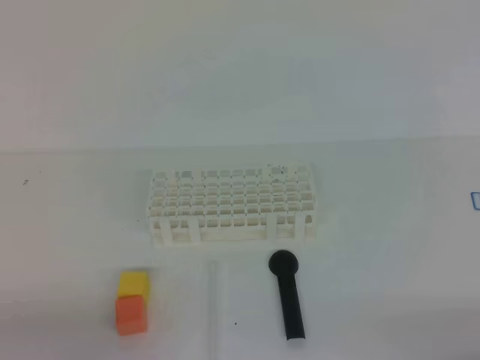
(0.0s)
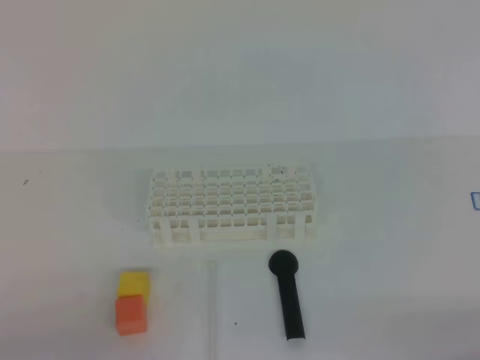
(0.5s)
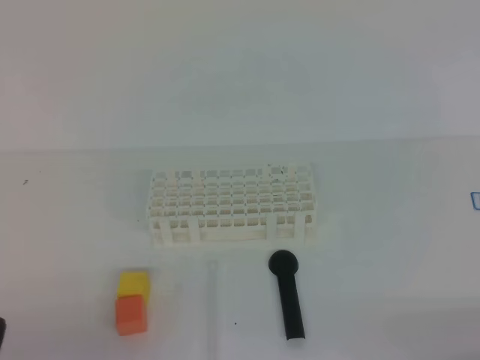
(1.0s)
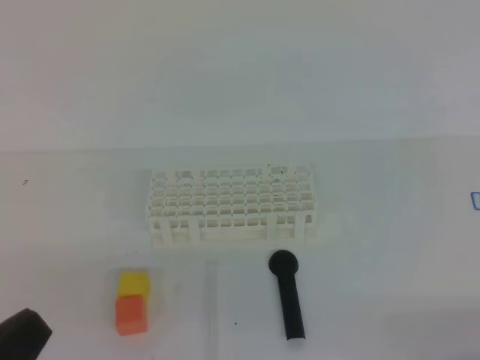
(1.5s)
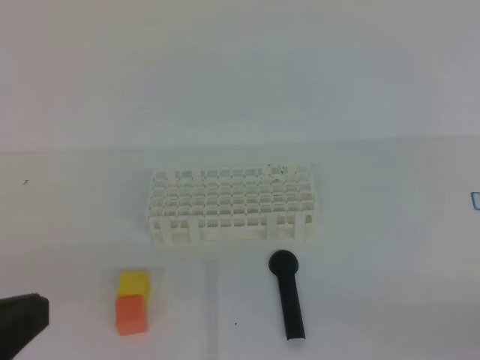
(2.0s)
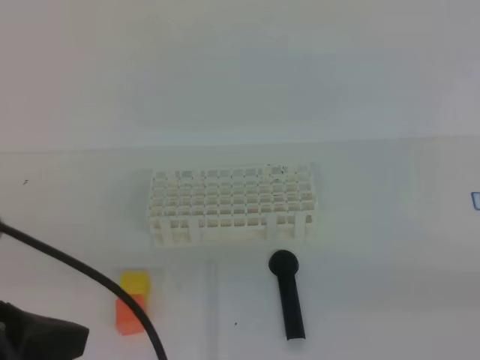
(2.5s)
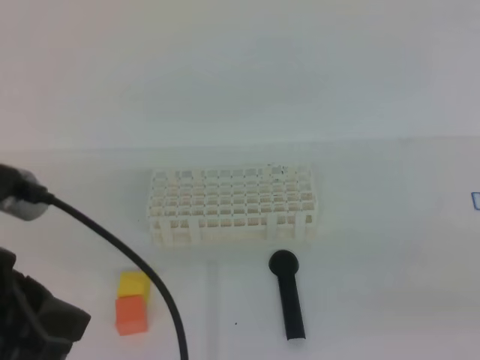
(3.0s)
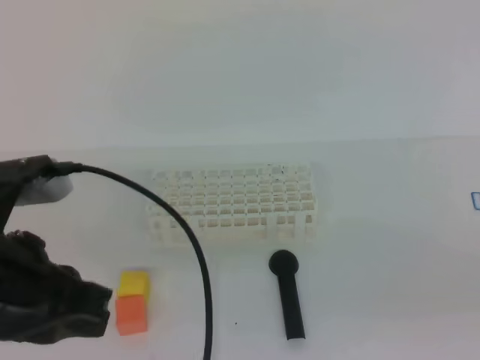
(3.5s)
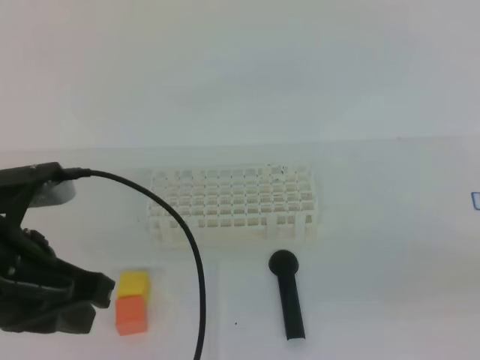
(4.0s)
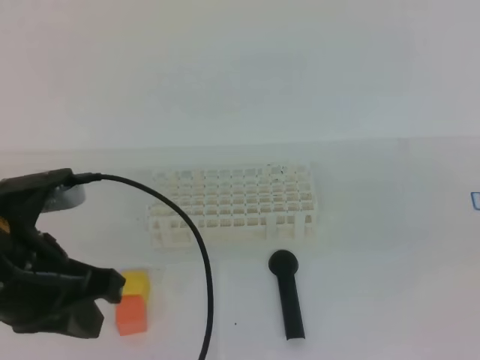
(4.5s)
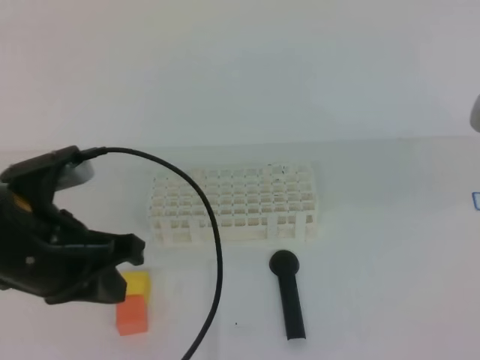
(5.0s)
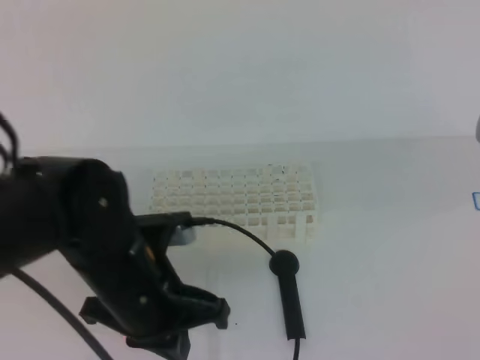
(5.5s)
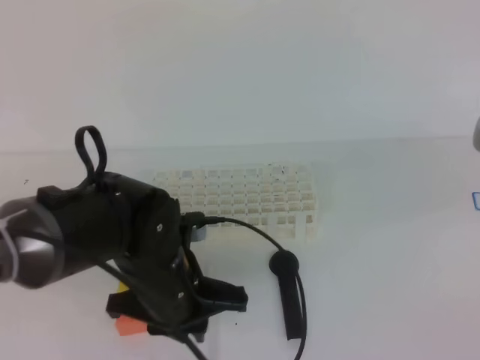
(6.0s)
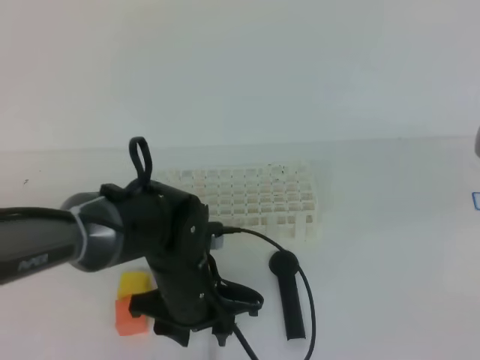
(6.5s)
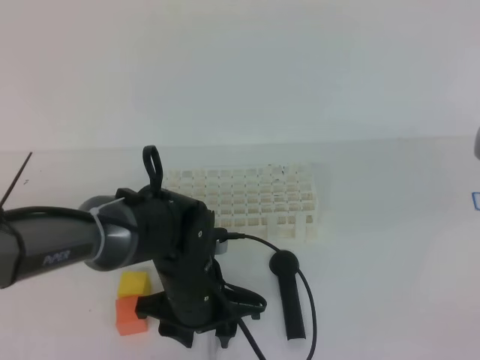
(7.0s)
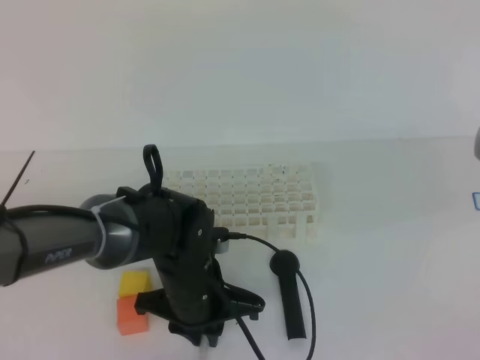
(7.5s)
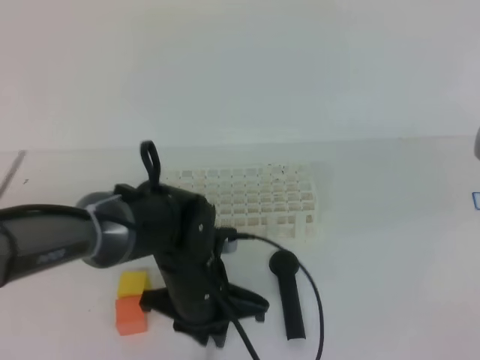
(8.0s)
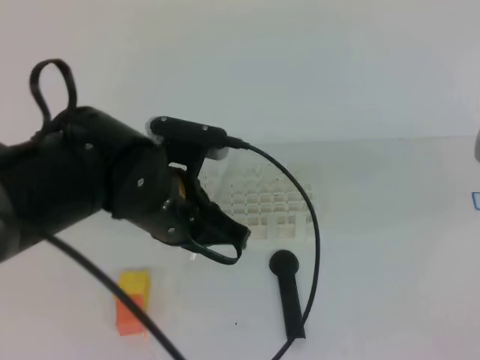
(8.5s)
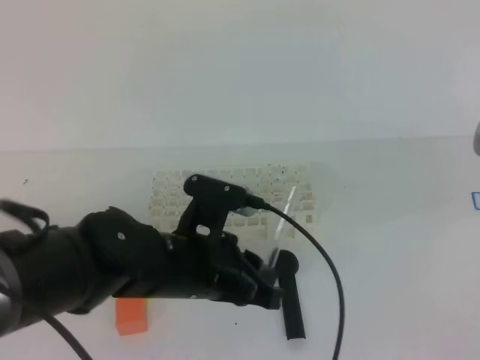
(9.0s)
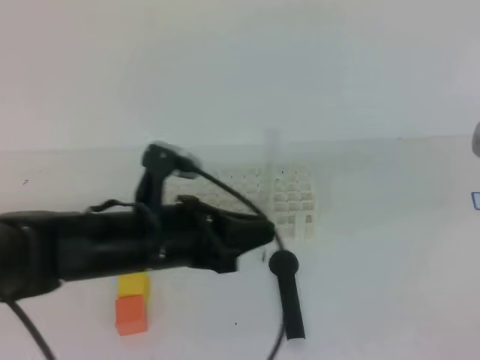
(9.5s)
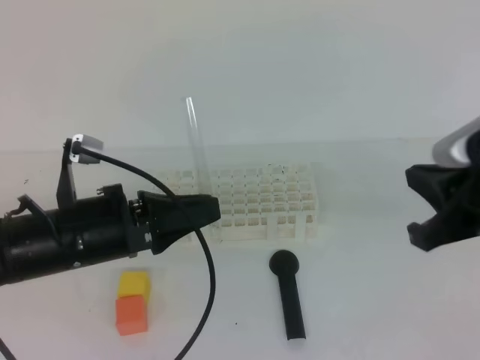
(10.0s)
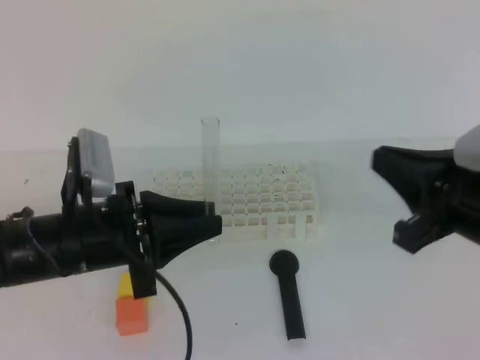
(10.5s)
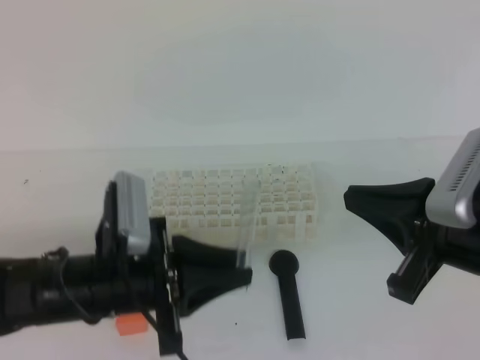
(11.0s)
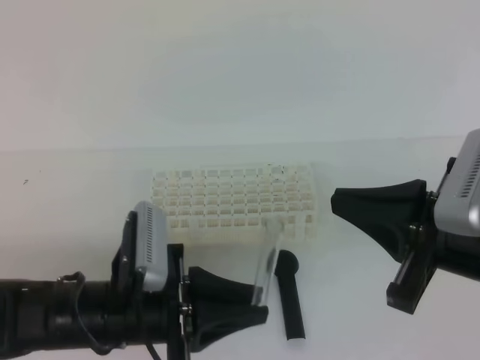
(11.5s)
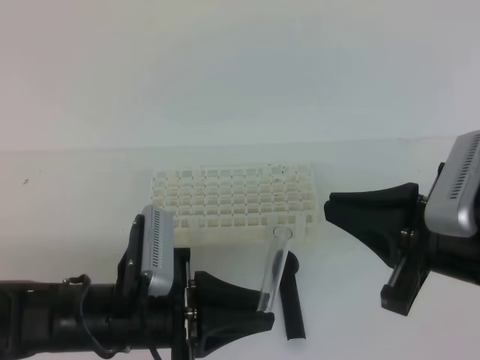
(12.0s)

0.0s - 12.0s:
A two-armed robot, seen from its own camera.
0.0s - 2.0s: The left gripper moves upward, roughly 15 cm.
2.0s - 4.0s: The left gripper shifts approximately 10 cm forward. Meanwhile the right gripper is displaced upward and to the left by some 15 cm.
4.0s - 6.0s: The right gripper goes about 15 cm forward, while the left gripper moves downward, to the right and forward, about 15 cm.
6.0s - 8.0s: The left gripper changes place by about 5 cm, and opens, then closes once more.
8.0s - 10.0s: The left gripper heads to the left and upward, covering some 10 cm. Meanwhile the right gripper heads downward, covering about 5 cm.
10.0s - 12.0s: The right gripper ends up roughly 5 cm from where it was; the left gripper is displaced backward by approximately 5 cm.

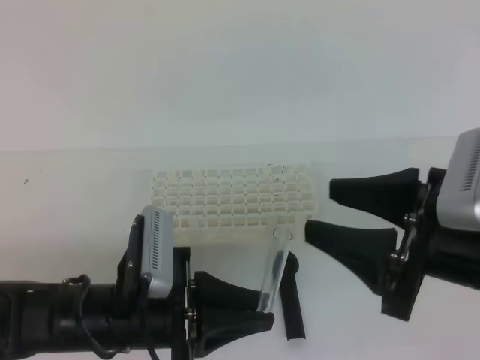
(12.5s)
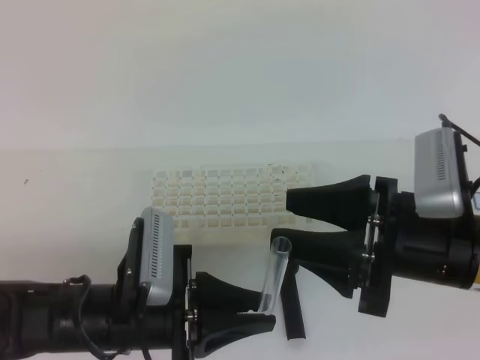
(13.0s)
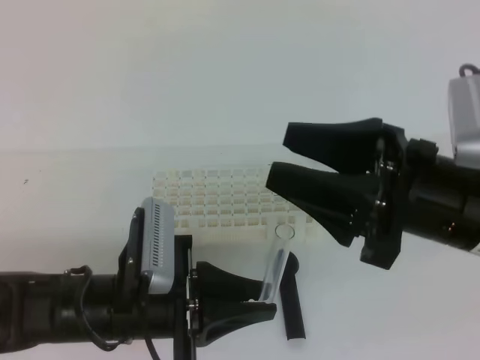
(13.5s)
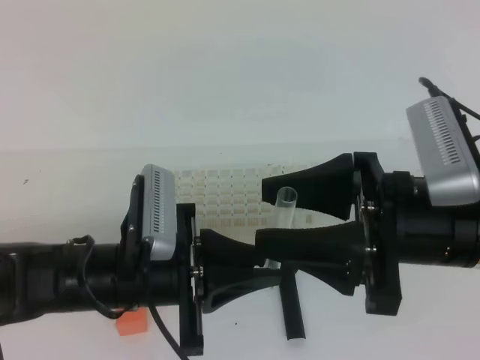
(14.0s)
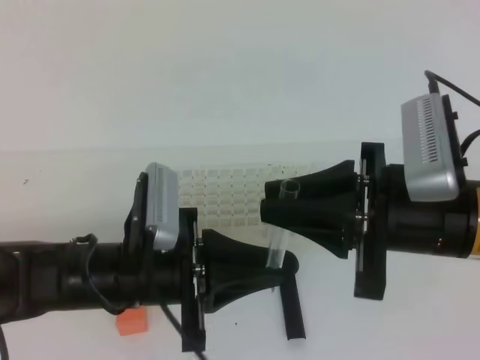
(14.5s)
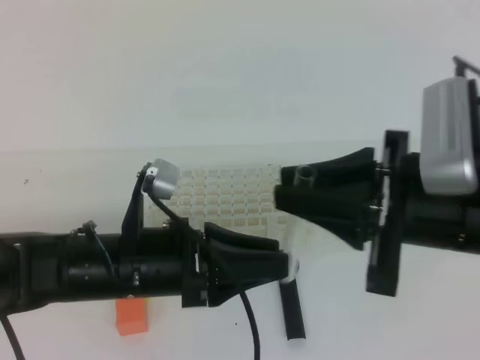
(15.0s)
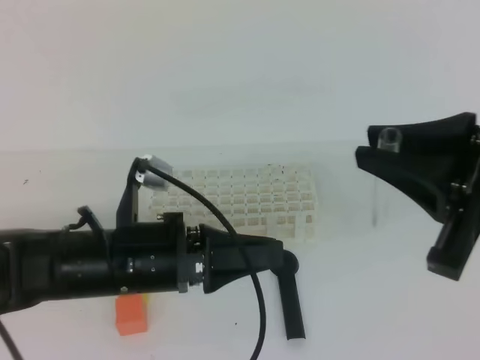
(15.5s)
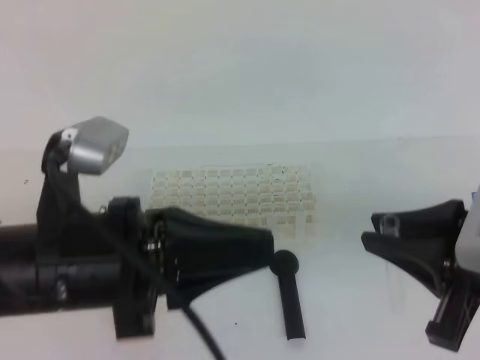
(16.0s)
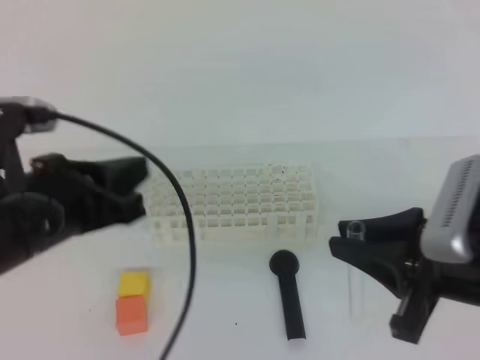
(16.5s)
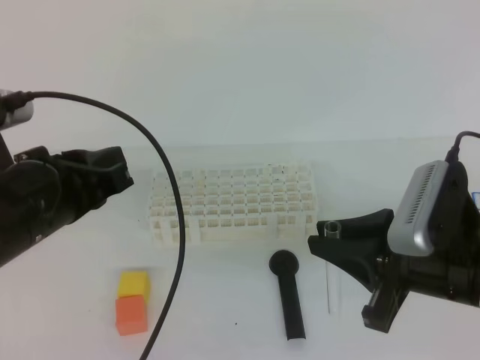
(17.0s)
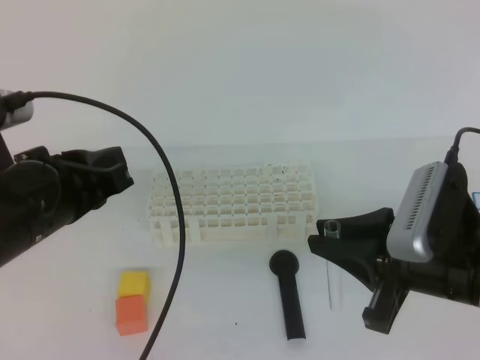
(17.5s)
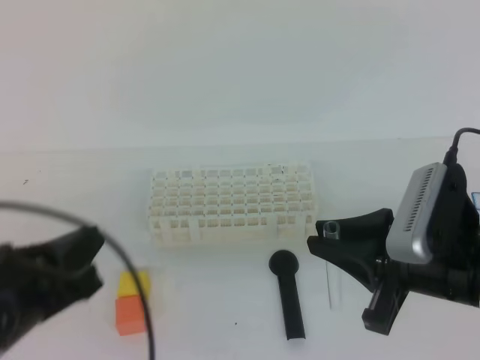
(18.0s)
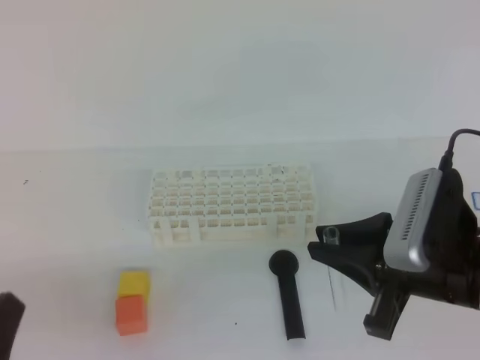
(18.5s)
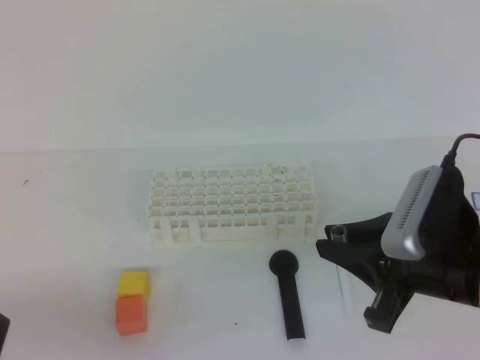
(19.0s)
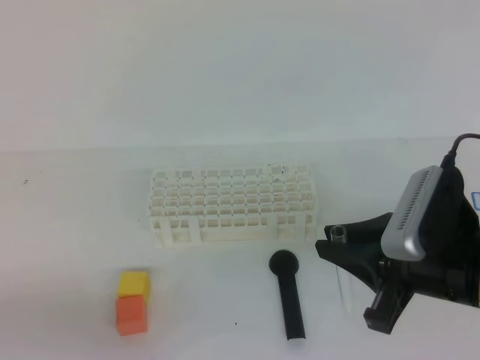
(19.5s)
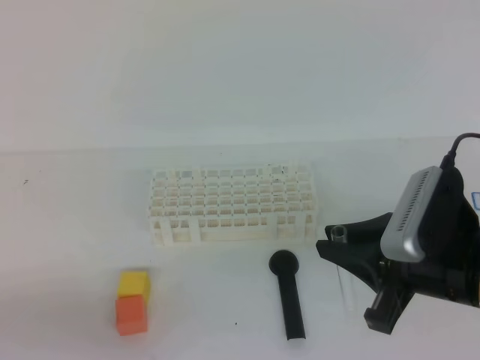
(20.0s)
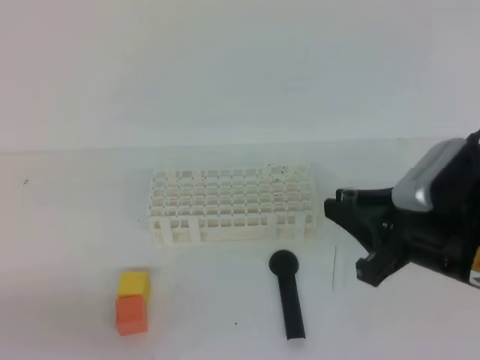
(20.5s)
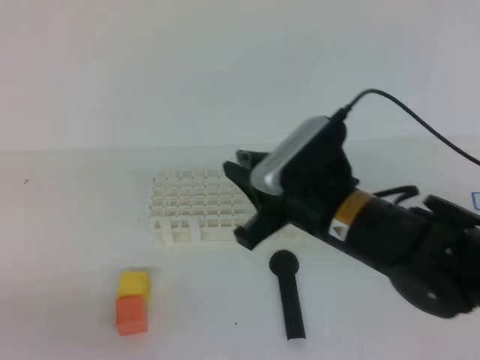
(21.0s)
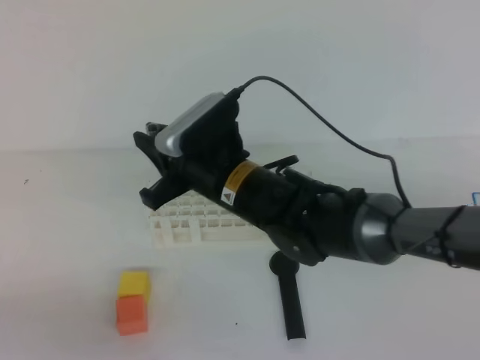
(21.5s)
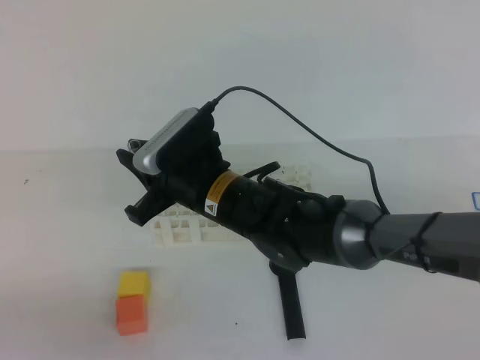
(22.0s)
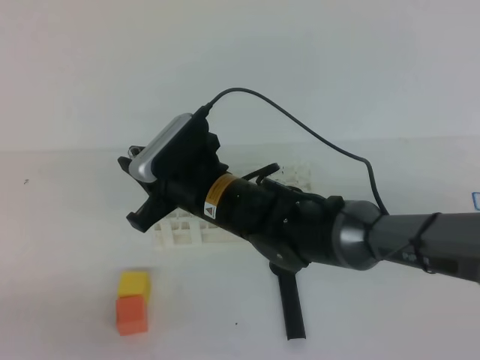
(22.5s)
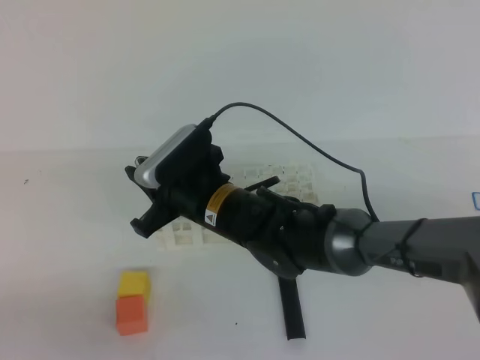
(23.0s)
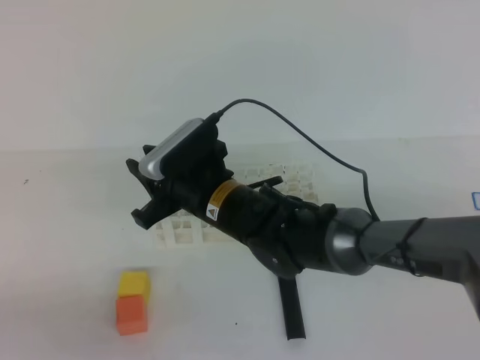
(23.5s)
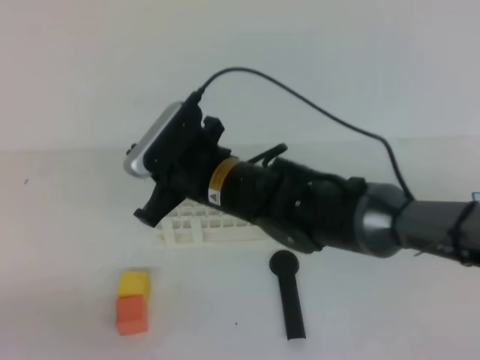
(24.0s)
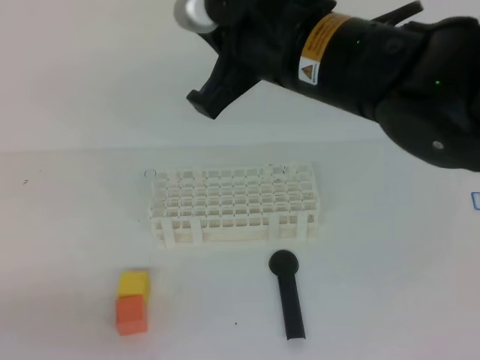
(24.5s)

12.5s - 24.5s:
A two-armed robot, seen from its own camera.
12.5s - 14.5s: The right gripper closes its fingers. The left gripper changes place by some 5 cm.
14.5s - 16.5s: The right gripper moves about 5 cm, while the left gripper travels upward and to the left by some 10 cm, and opens and closes again.
16.5s - 18.5s: The left gripper is displaced backward, downward and to the left by some 15 cm.
18.5s - 20.5s: The grippers move only a little.
20.5s - 22.5s: The right gripper is displaced to the left and forward by approximately 25 cm.
22.5s - 24.5s: The right gripper heads upward and to the right, covering about 20 cm.

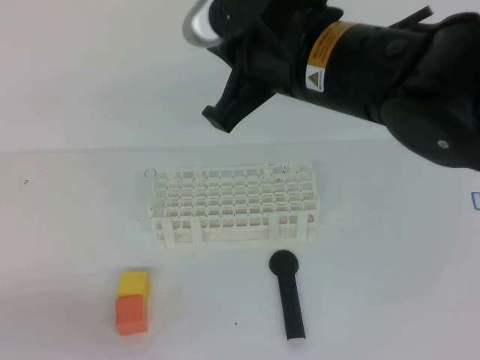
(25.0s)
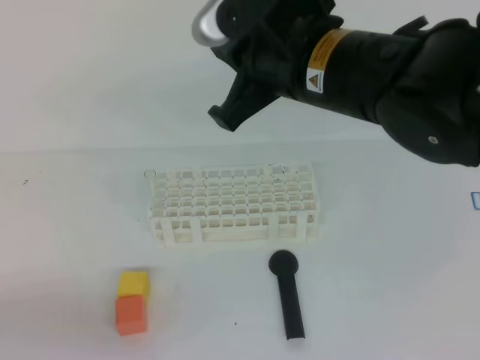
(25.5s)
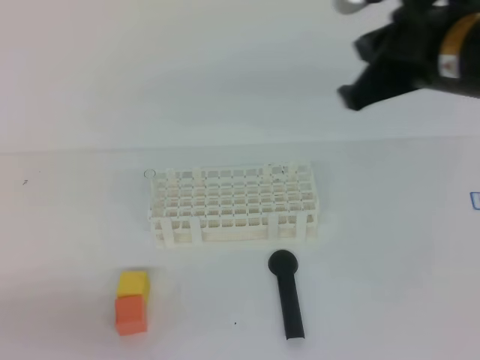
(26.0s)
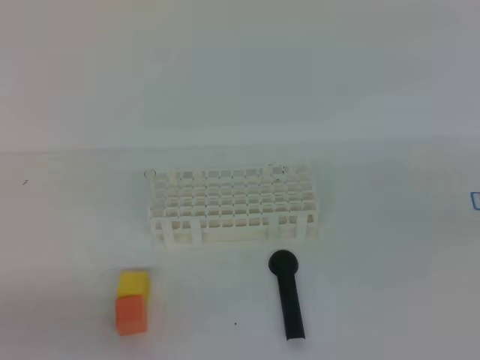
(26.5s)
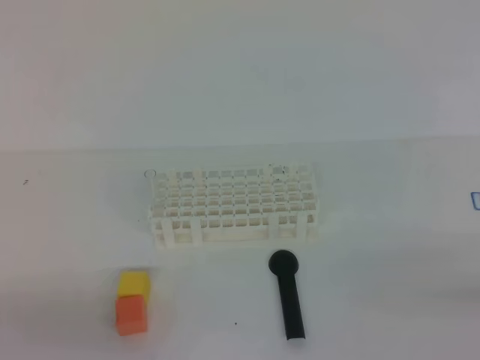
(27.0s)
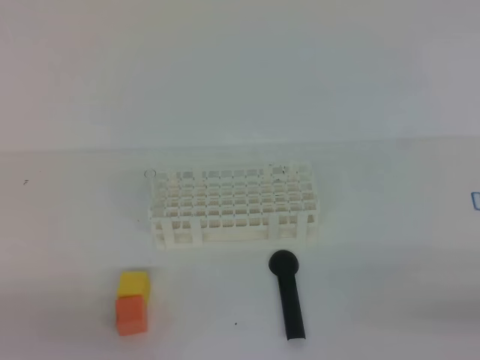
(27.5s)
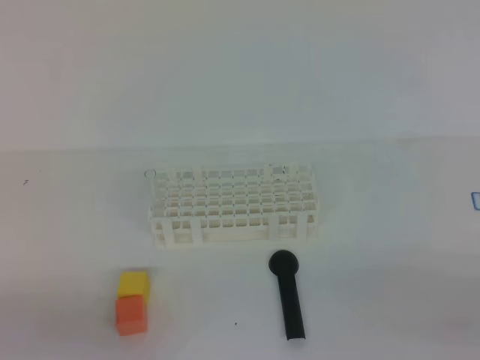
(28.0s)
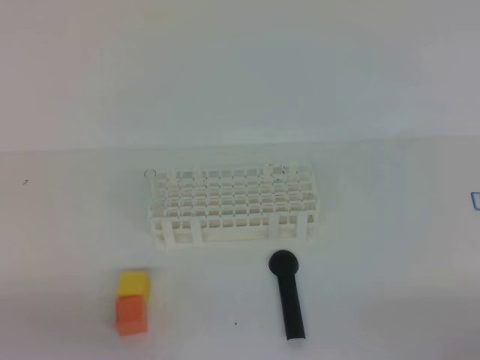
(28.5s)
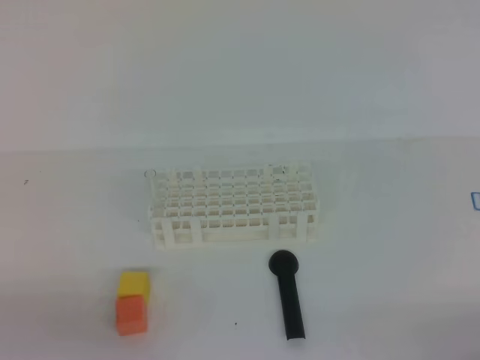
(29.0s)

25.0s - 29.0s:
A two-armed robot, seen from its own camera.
25.0s - 27.0s: The right gripper travels to the right, backward and downward by about 40 cm.
